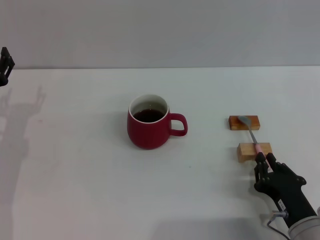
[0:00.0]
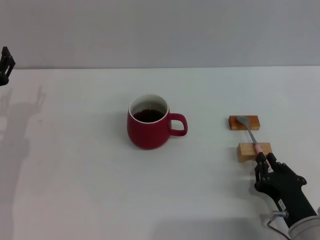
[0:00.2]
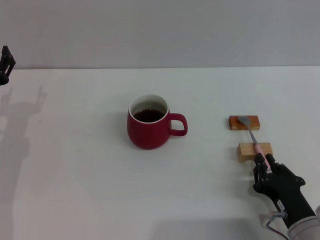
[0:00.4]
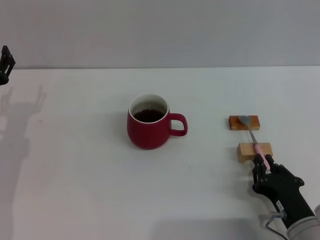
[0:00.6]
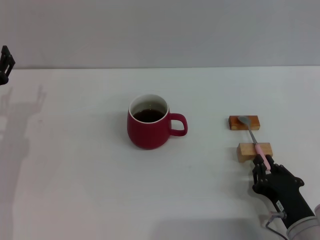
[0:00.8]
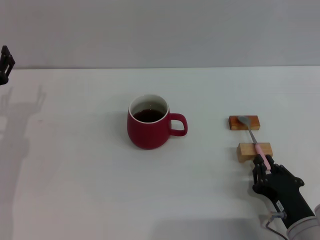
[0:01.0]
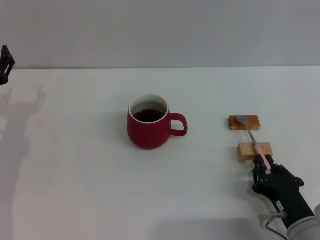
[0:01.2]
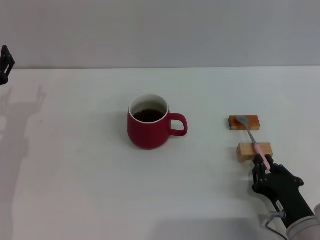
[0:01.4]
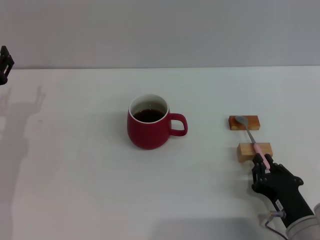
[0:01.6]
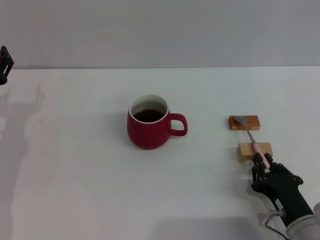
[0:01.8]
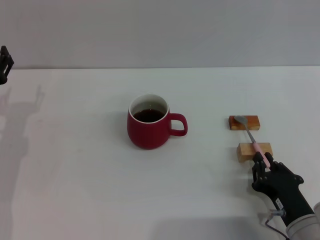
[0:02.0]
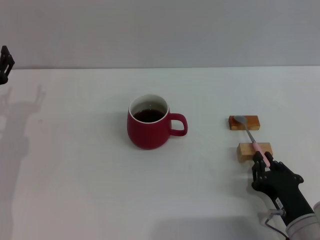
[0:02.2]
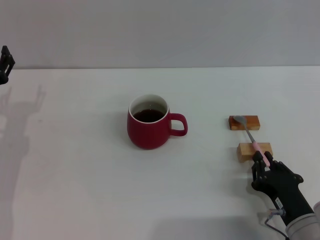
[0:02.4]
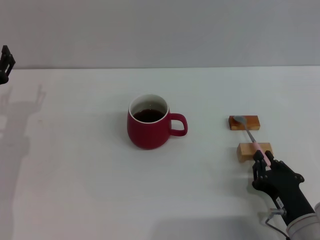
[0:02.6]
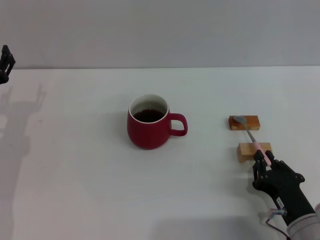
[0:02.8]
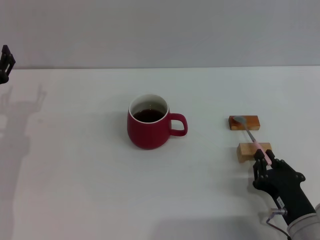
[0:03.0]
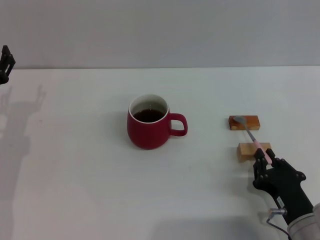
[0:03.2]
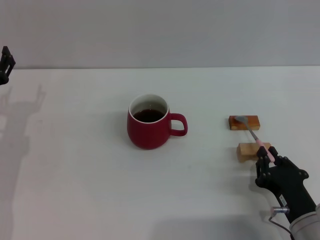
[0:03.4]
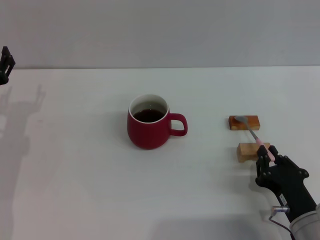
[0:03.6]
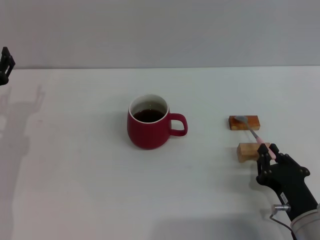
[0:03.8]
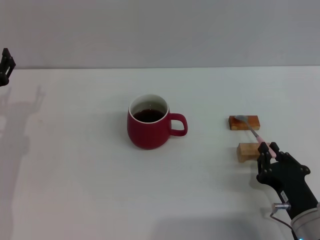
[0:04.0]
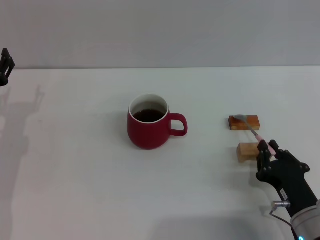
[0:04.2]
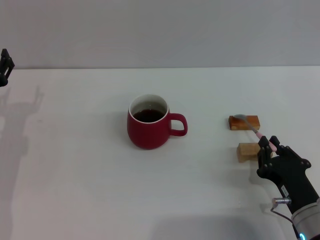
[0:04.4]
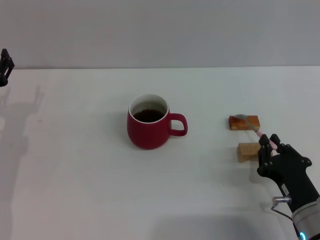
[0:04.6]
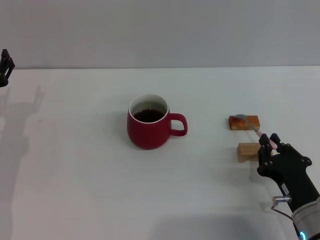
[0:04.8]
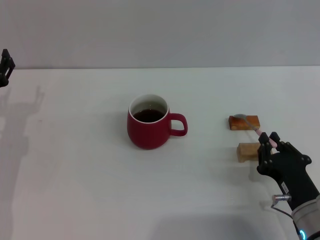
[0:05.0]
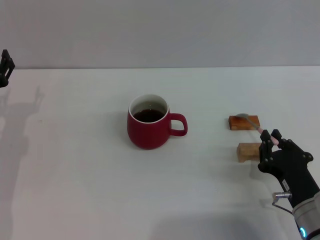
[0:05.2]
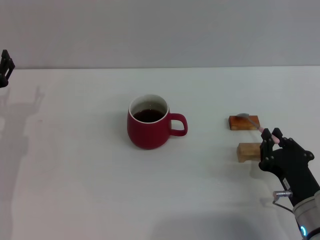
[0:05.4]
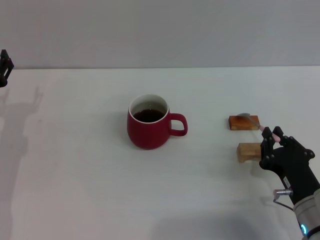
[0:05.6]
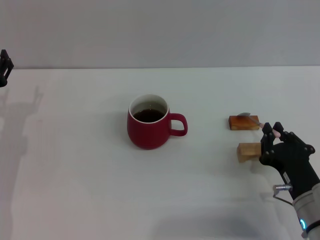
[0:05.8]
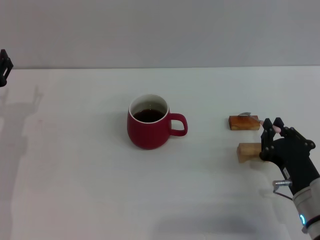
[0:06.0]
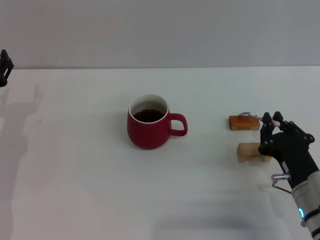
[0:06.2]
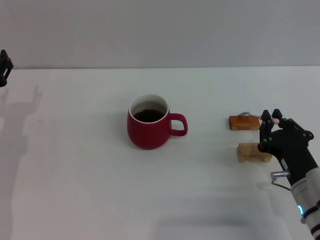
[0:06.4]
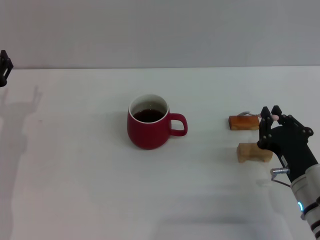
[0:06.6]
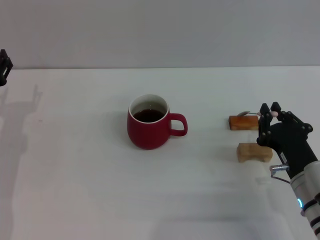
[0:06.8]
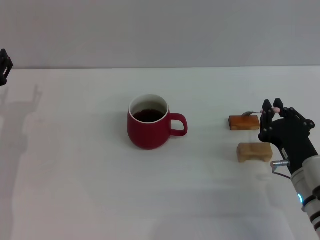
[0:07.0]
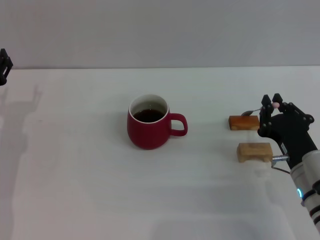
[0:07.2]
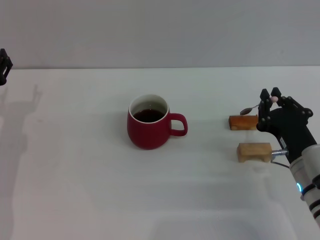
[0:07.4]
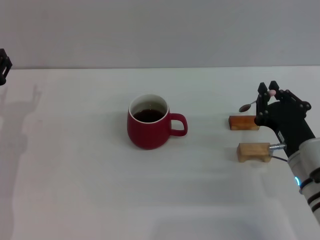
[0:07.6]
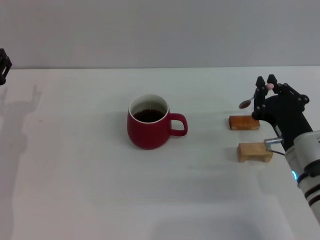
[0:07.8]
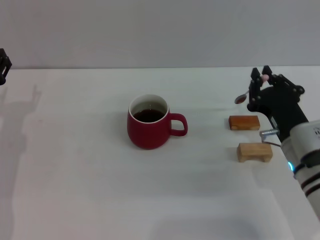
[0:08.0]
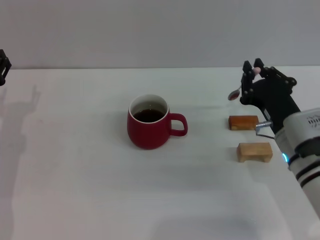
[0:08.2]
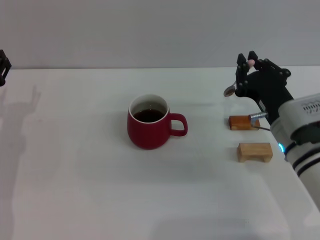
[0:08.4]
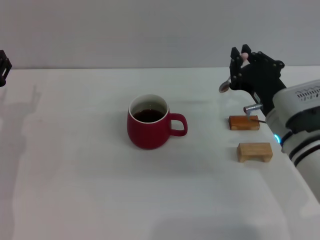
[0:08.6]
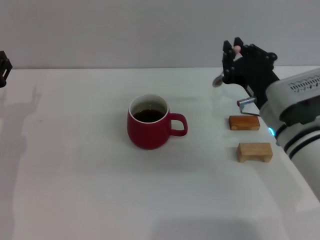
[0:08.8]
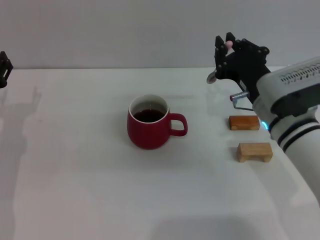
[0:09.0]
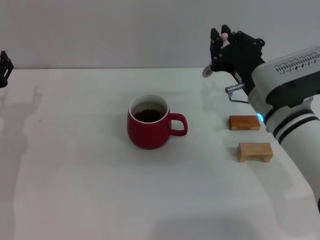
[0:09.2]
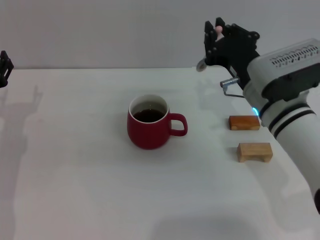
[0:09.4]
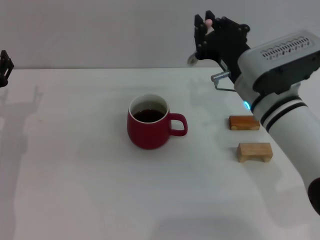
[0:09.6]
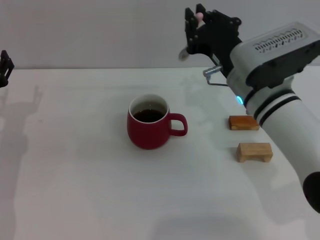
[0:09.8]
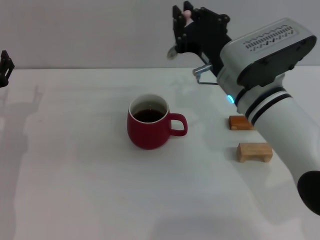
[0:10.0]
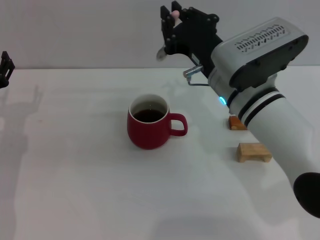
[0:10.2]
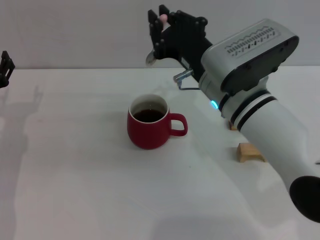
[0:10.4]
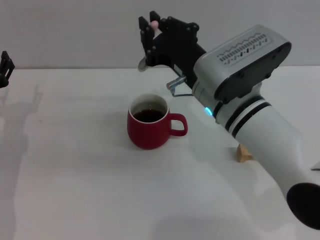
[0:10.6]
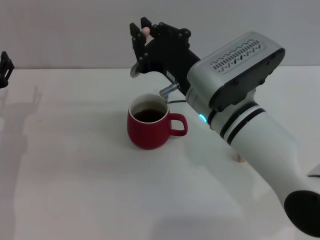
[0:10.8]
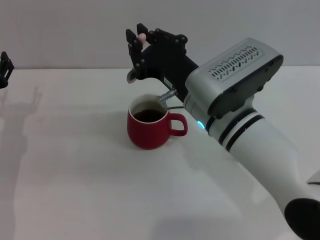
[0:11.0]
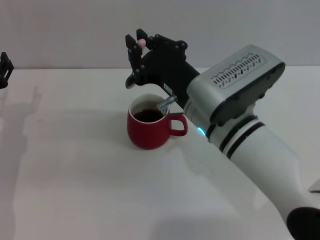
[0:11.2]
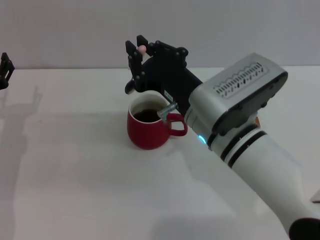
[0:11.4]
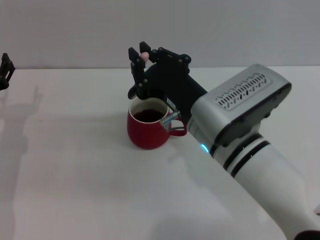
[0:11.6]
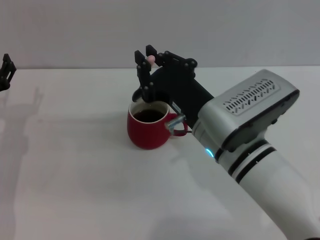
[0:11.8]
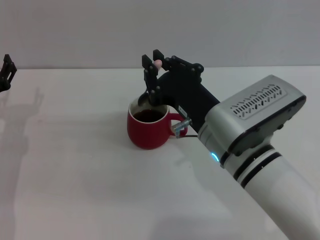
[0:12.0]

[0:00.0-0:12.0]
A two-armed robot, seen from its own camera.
Task of the whole recording: Move the red cup to the center, lift the pink spoon, stir it three times in the cup, and put the spoon into the cup.
Step, 0:00.0 to 0:07.8: Pick up the spoon with the right gripper.
0:00.0 to 0:03.0: Both grippers stay about where they are.
0:03.0 to 0:06.0: The grippers make only small movements.
0:06.0 to 0:07.6: The right gripper shifts by some 5 cm.
0:07.6 to 0:09.0: The right gripper moves upward and forward, some 10 cm.
0:09.0 to 0:10.4: The right gripper shifts about 5 cm to the left.
0:10.4 to 0:12.0: The right gripper goes some 5 cm backward.

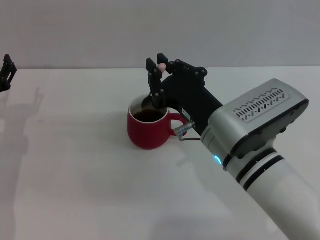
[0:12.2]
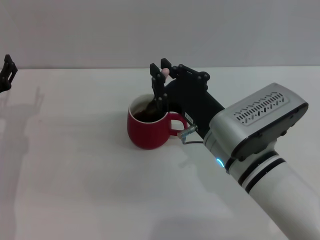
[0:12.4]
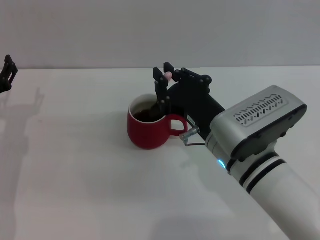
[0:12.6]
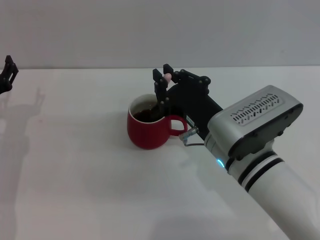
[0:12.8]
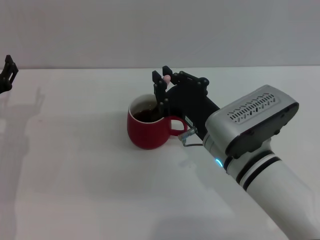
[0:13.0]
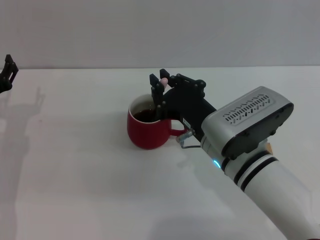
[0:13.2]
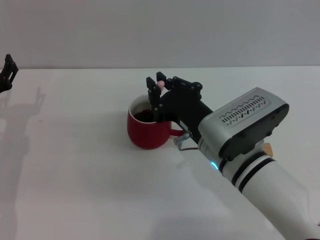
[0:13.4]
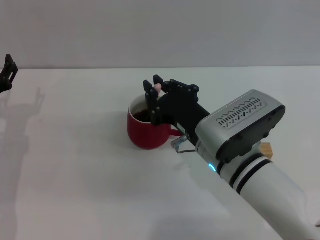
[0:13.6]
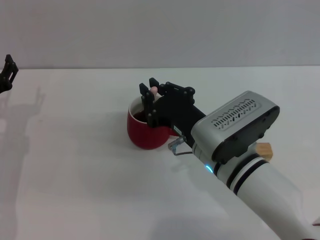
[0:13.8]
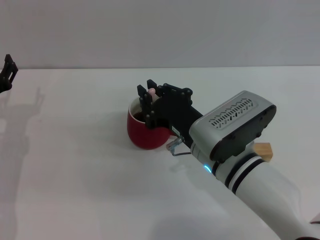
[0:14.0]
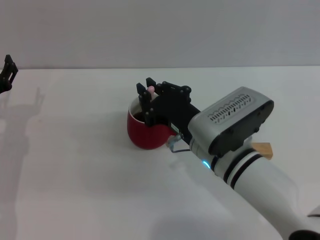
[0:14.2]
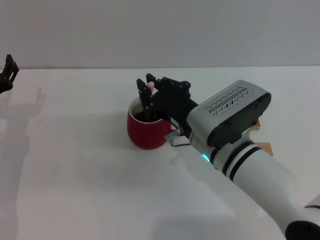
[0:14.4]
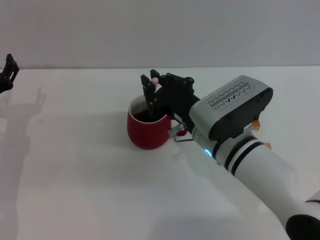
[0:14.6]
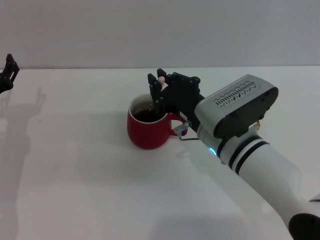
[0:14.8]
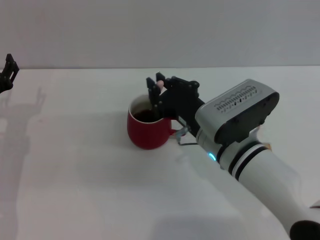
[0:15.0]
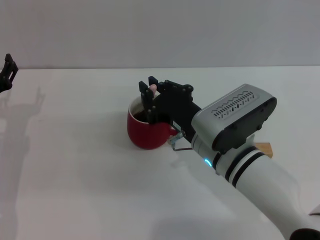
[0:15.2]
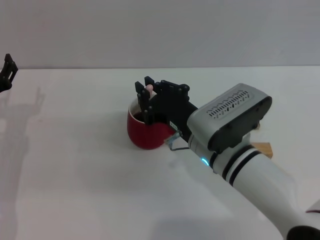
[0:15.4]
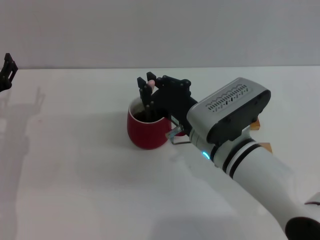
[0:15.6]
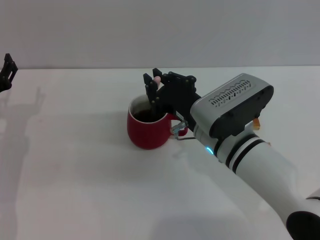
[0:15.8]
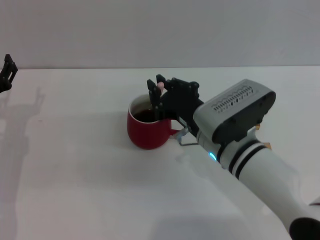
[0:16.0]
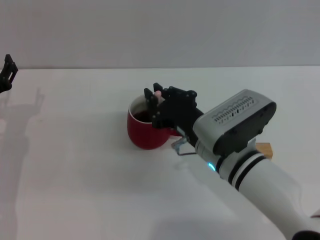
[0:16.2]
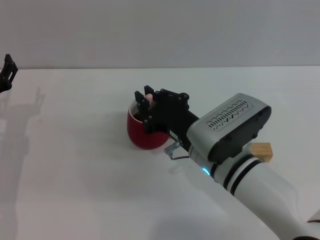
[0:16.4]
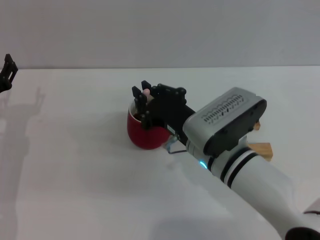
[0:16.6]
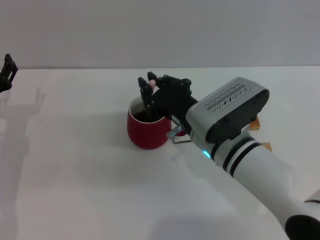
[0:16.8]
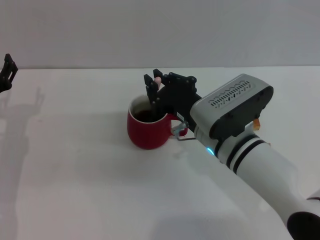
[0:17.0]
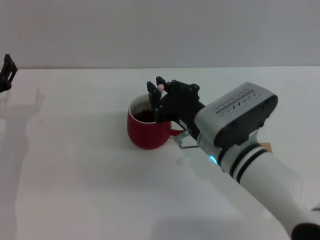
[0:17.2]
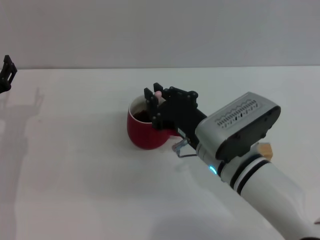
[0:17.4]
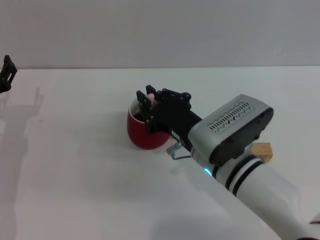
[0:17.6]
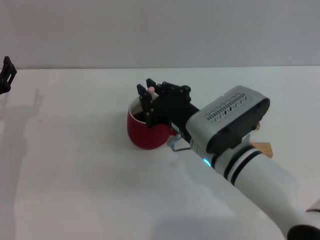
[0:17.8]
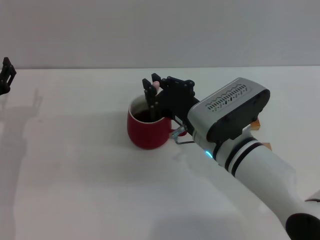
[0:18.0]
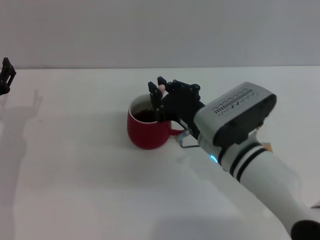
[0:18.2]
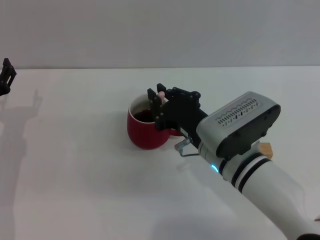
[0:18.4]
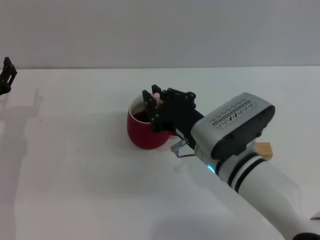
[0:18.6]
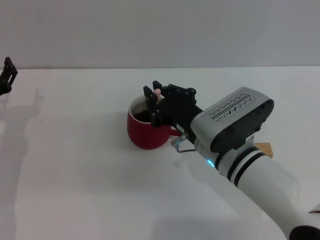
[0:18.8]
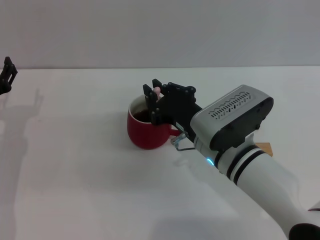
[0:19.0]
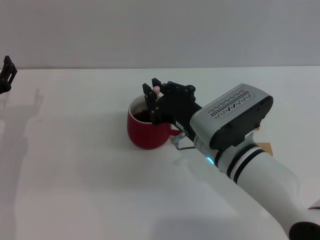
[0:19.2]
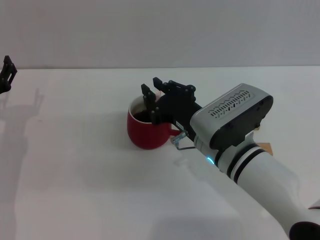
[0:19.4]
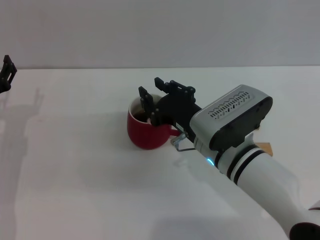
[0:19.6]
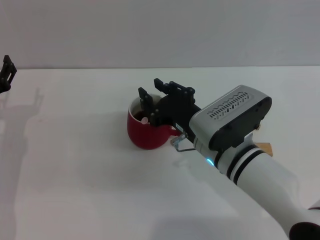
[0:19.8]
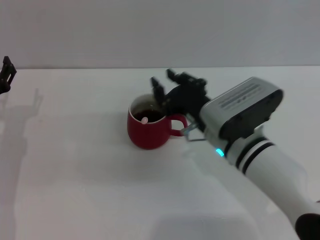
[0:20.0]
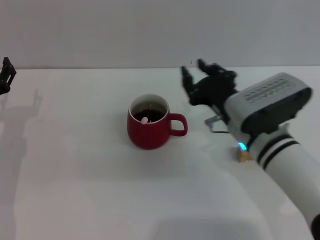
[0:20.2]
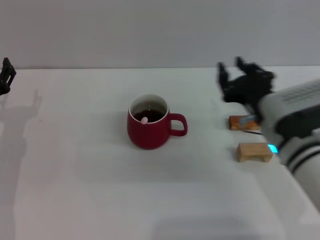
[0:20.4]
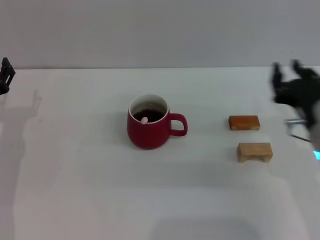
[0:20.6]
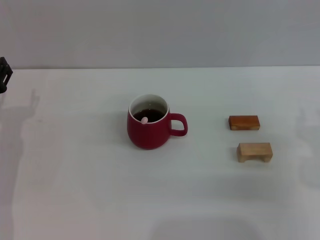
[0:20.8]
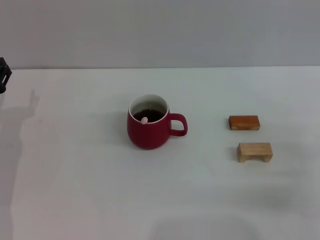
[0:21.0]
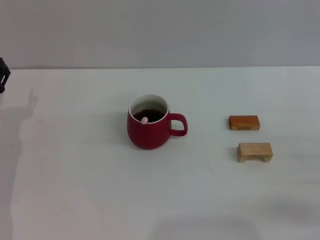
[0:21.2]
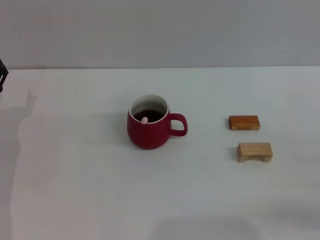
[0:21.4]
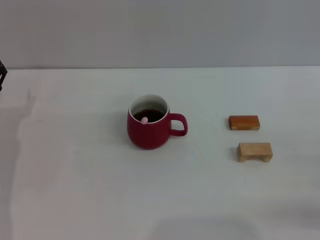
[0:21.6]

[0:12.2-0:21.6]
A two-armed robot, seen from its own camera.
Task of the whole recording: Move the red cup to the center, lift the pink spoon, stir it three times in the cup, and put the spoon into the cup.
Step, 0:12.2 to 0:19.8: Stir the coffee in the cup with the right gripper.
0:12.2 to 0:20.0: The grippers move only a little.
0:20.0 to 0:21.6: The right gripper goes about 25 cm to the right.
